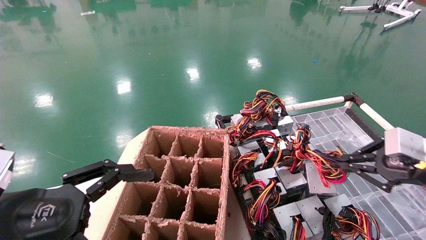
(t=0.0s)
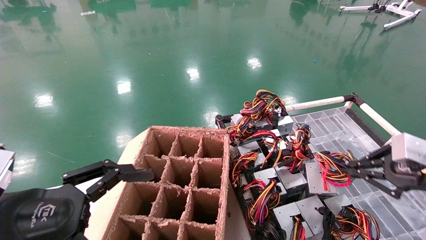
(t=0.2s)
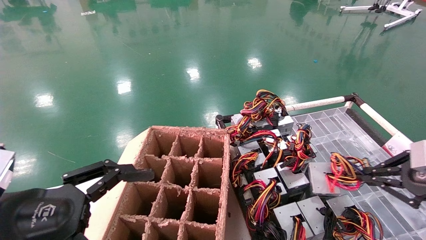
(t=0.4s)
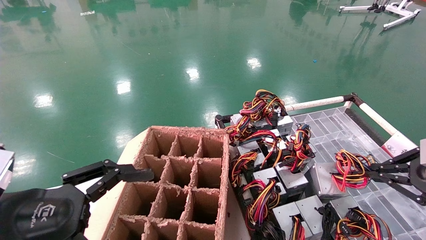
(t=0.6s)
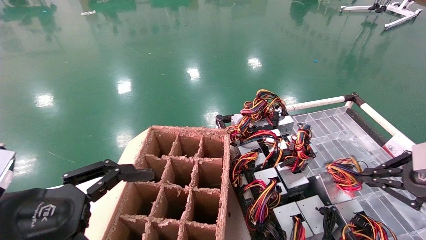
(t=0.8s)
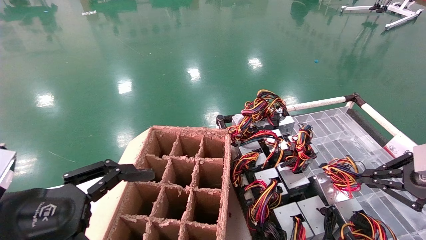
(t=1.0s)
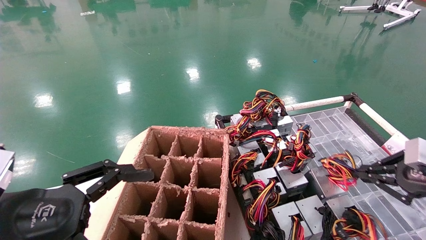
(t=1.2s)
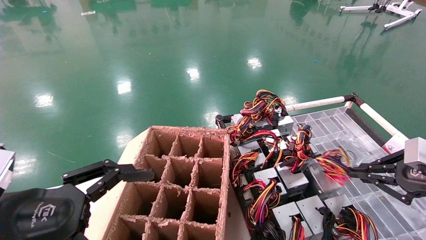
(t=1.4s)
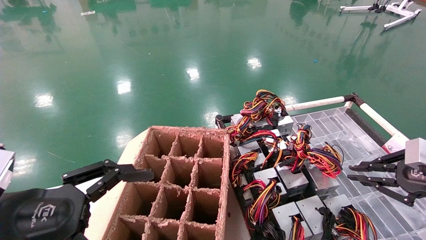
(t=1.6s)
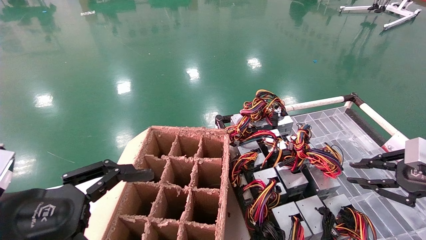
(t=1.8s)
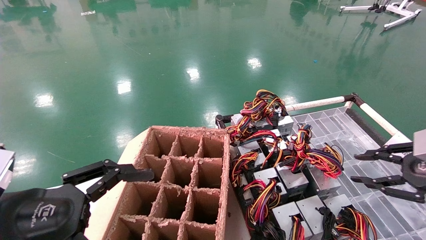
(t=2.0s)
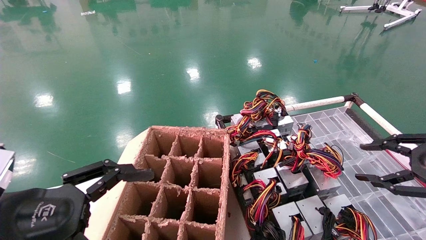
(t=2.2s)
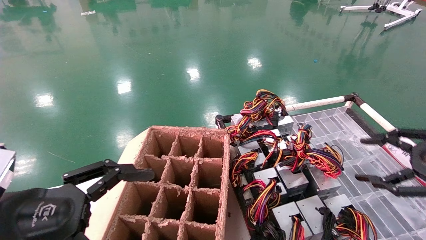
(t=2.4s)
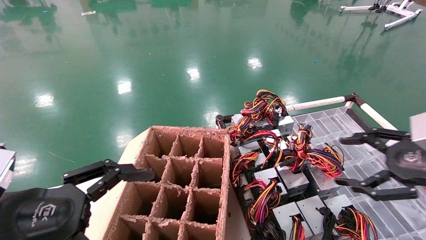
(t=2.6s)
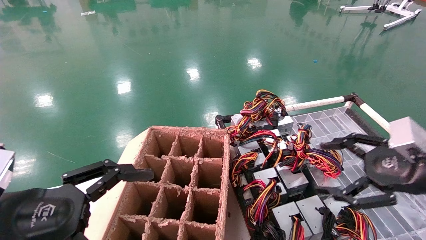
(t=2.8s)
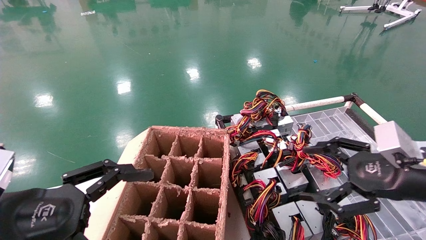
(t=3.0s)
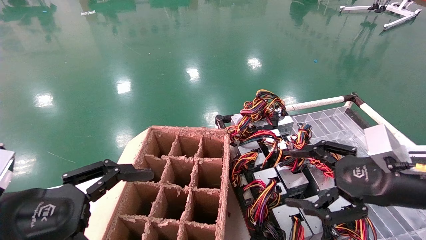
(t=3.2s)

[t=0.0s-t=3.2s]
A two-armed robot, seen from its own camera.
t=0.0s to t=1.6s: The grippers stay close to where they were, moving slightly.
t=1.6s to t=3.2s: The right gripper heads to the left, covering about 10 cm, and opens.
